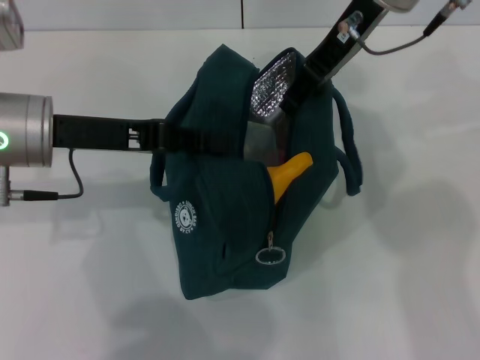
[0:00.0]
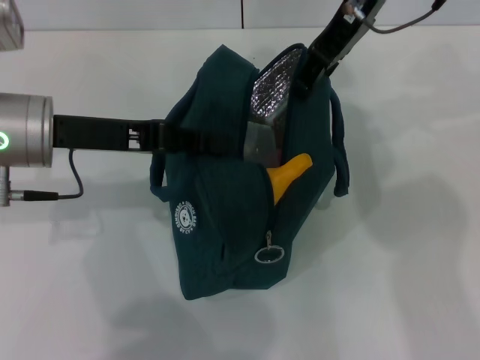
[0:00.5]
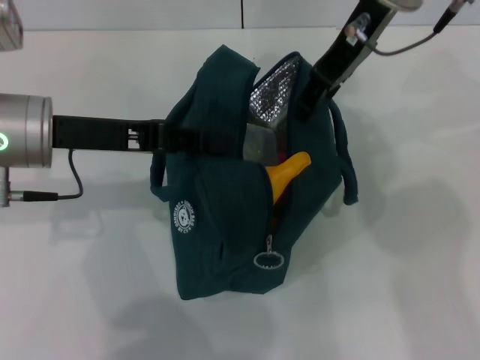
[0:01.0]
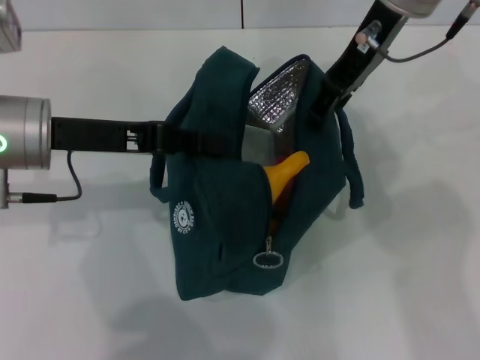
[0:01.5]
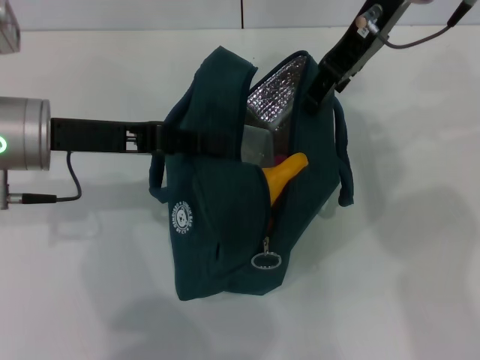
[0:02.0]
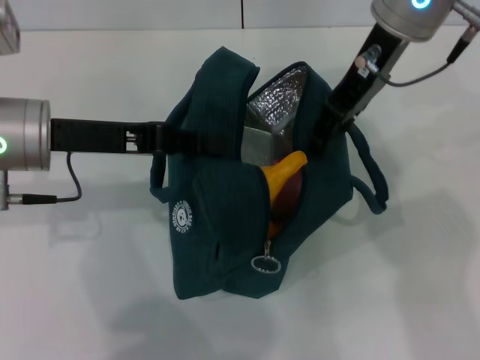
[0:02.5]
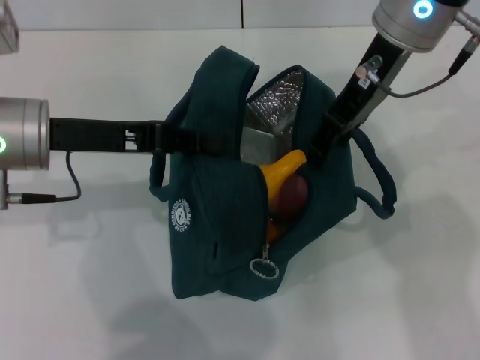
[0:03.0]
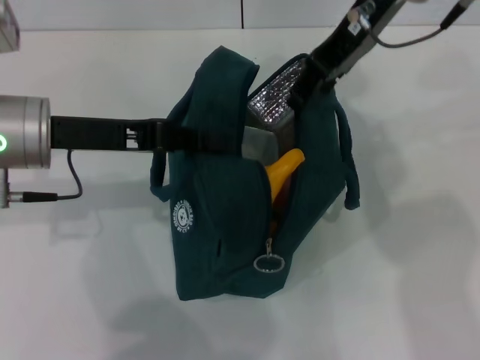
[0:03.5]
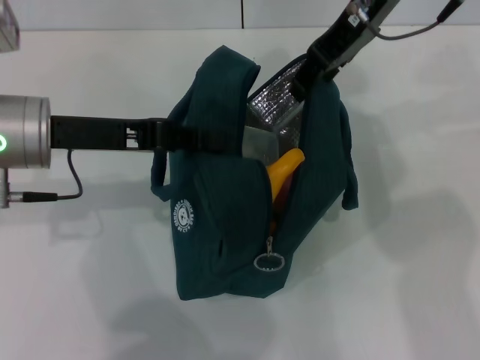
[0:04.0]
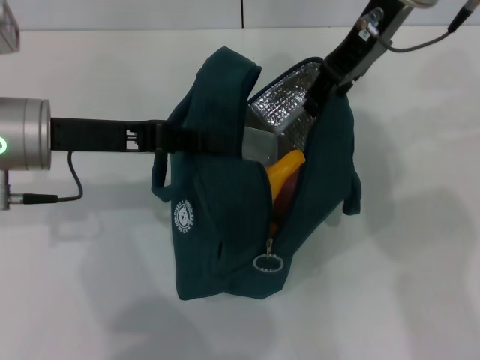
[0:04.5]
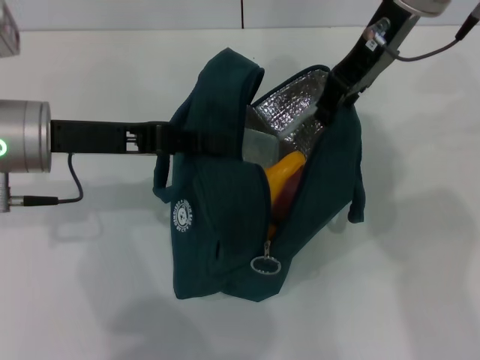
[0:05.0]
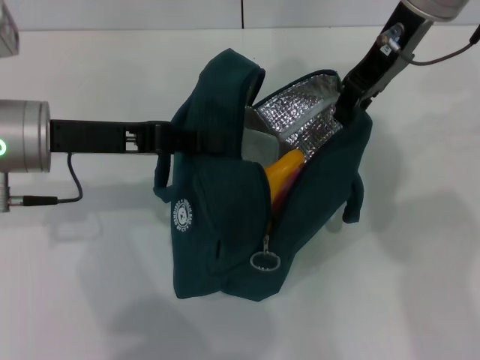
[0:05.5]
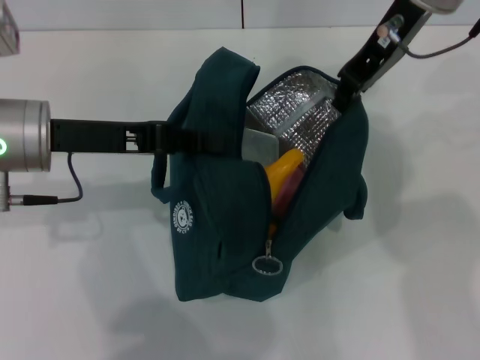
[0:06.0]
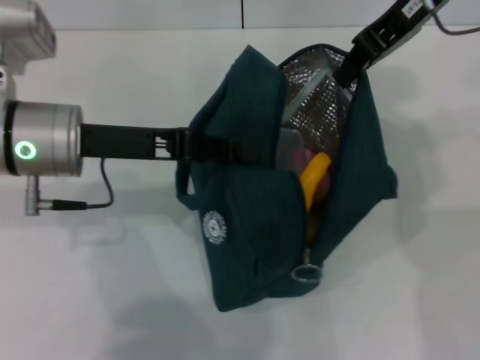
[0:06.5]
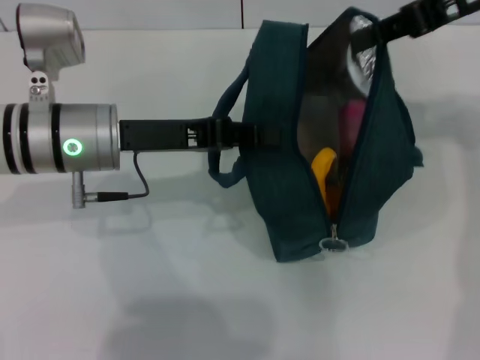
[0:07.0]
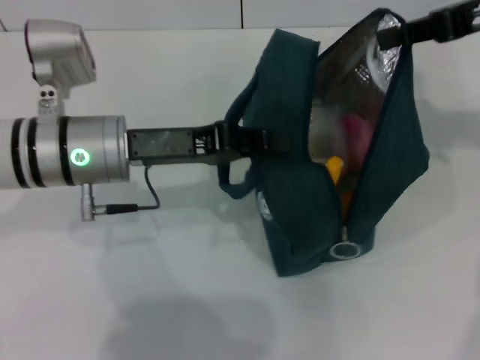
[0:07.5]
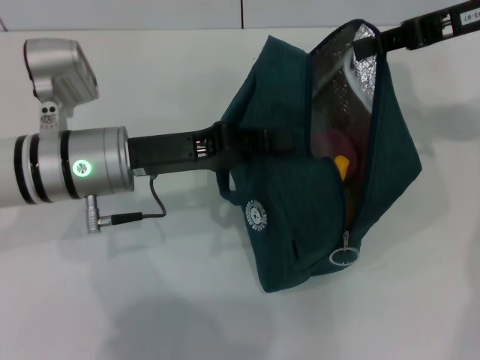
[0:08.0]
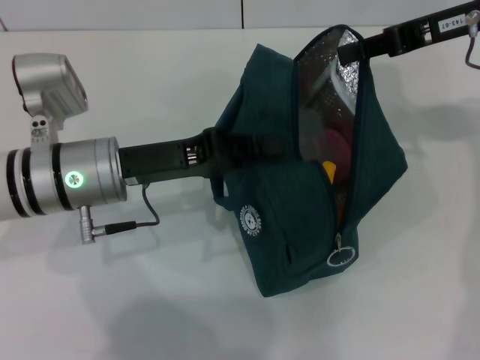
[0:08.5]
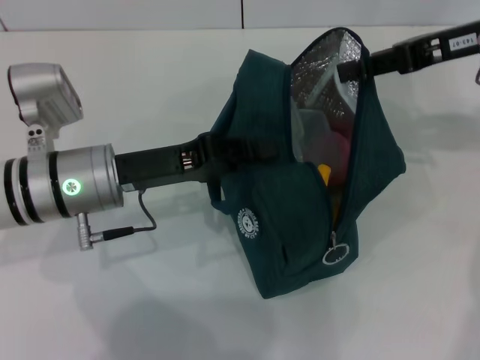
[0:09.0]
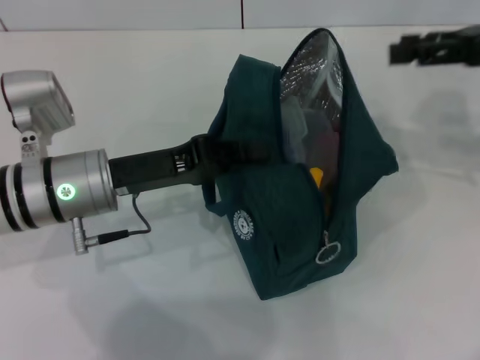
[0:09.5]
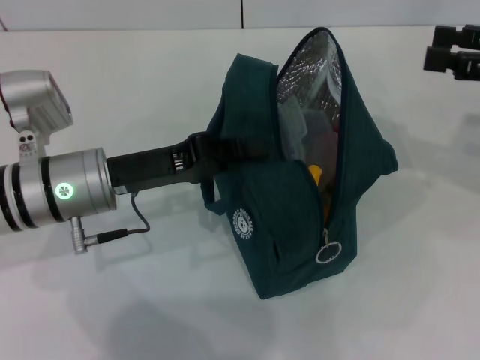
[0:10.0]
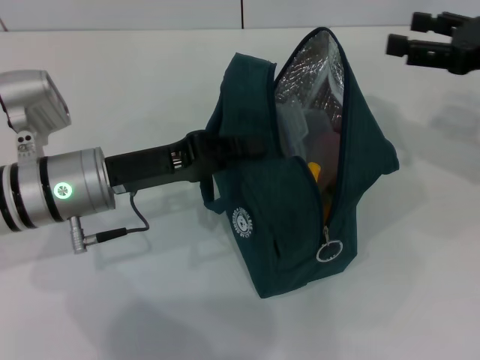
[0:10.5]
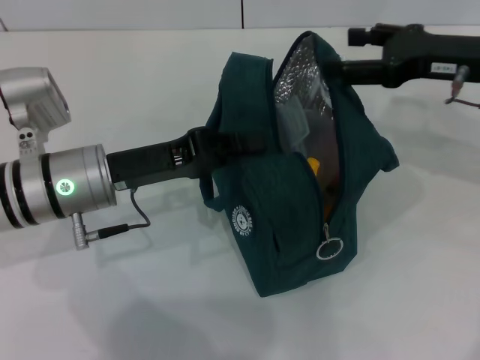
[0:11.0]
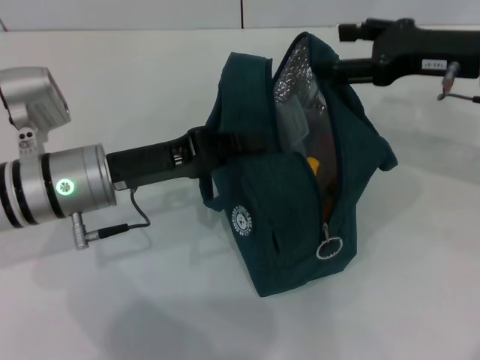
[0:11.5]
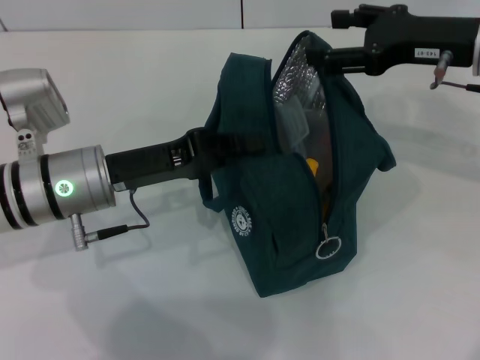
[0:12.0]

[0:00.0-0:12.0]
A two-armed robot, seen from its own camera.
Step, 0:00.0 to 0:09.0: Hold the lunch bag with your right hand.
0:00.0 to 0:04.0: There are only small adjustments of the grippers.
0:04.0 to 0:06.0: The right gripper closes up.
0:06.0 to 0:08.0: The right gripper heads to the right, covering roughly 10 cm; the left gripper moves to the right, about 5 cm.
0:08.0 to 0:10.0: The right gripper heads to the right and backward, covering approximately 10 cm, and opens up.
0:10.0 to 0:12.0: The right gripper heads to the left and forward, covering roughly 10 cm.

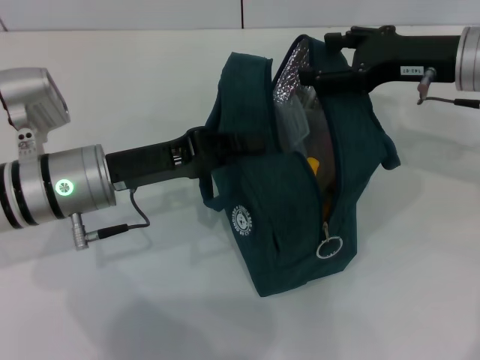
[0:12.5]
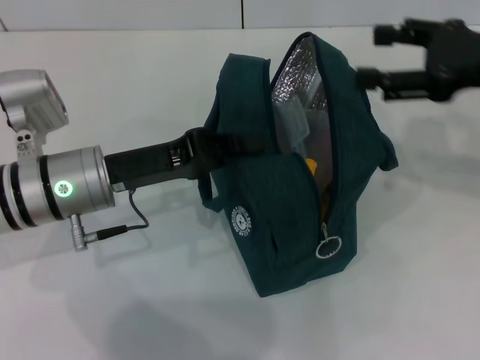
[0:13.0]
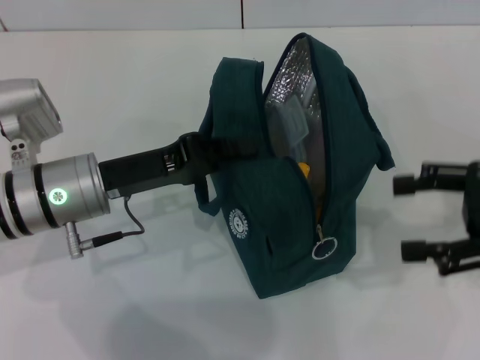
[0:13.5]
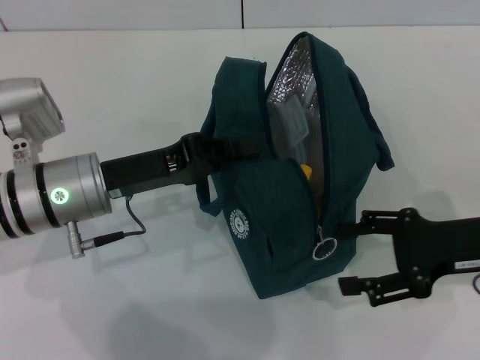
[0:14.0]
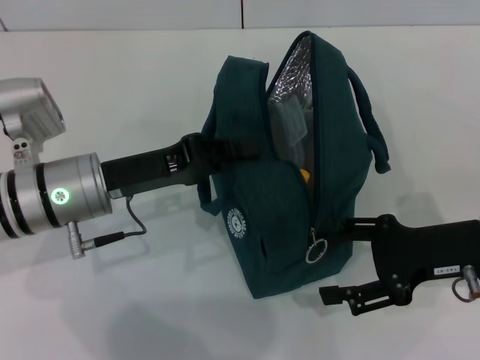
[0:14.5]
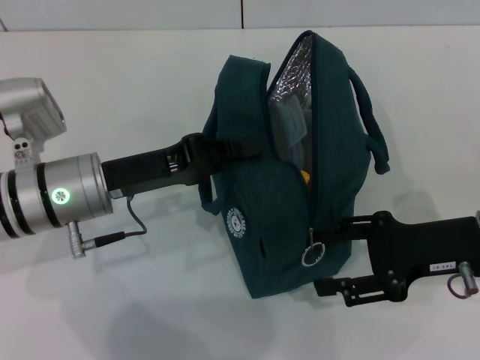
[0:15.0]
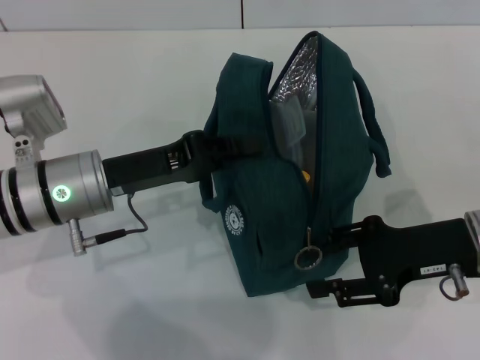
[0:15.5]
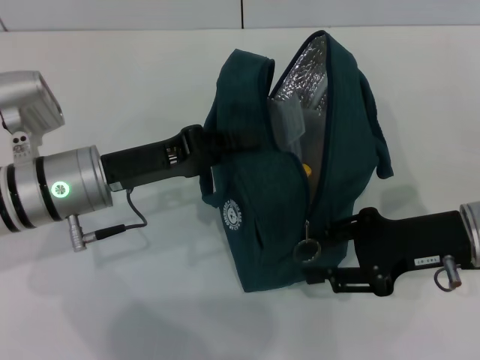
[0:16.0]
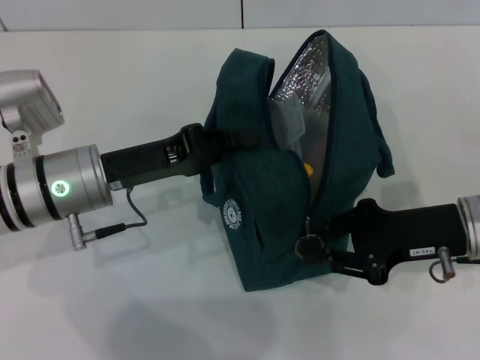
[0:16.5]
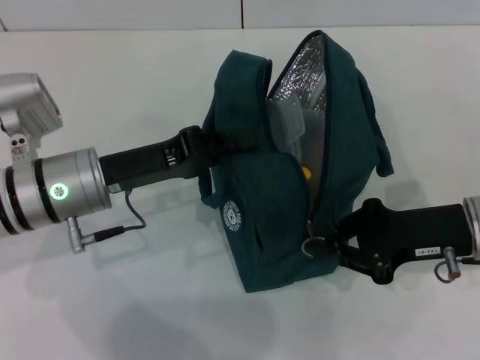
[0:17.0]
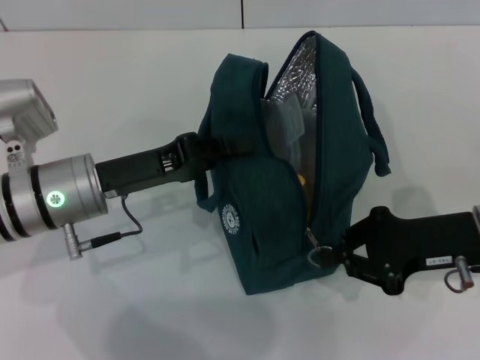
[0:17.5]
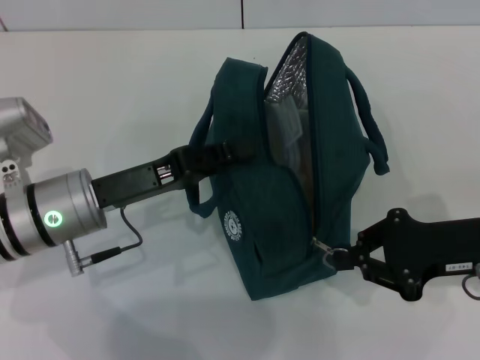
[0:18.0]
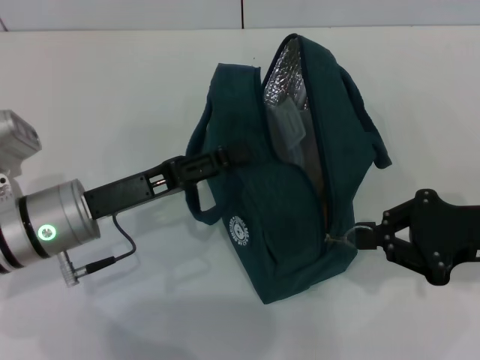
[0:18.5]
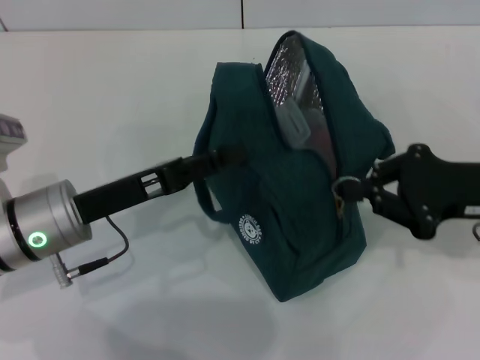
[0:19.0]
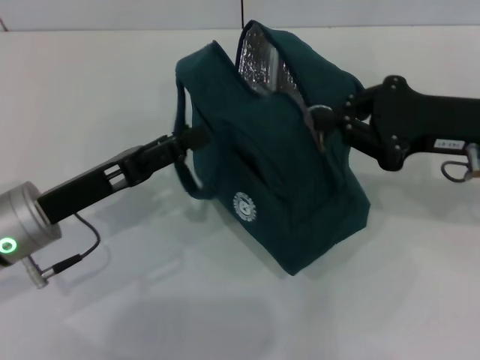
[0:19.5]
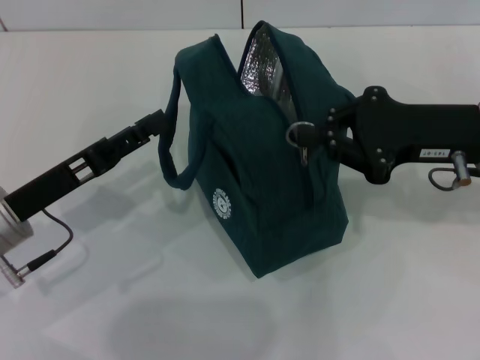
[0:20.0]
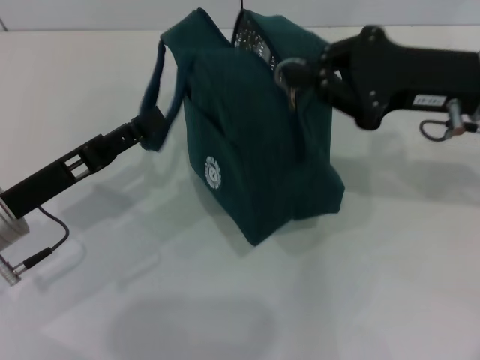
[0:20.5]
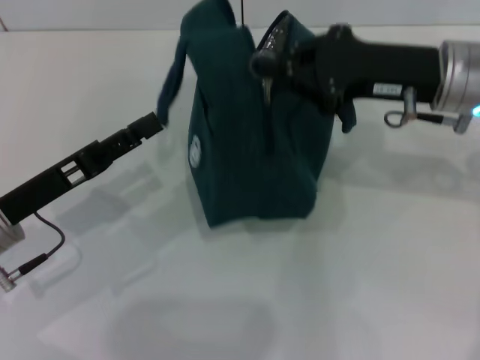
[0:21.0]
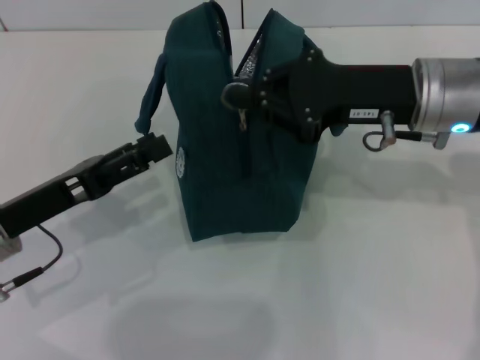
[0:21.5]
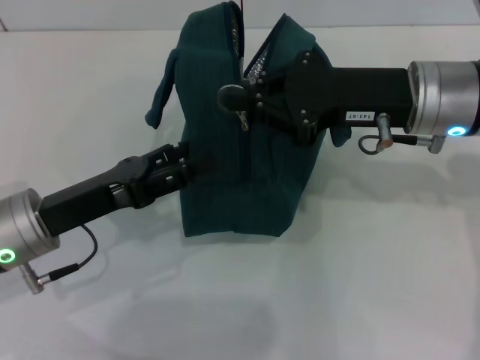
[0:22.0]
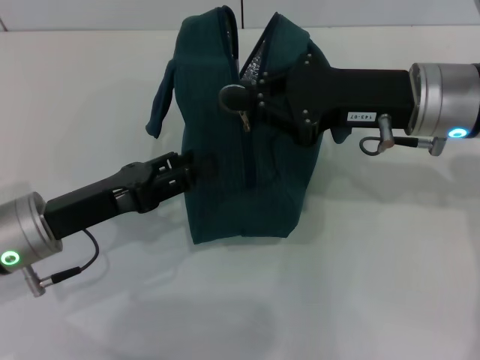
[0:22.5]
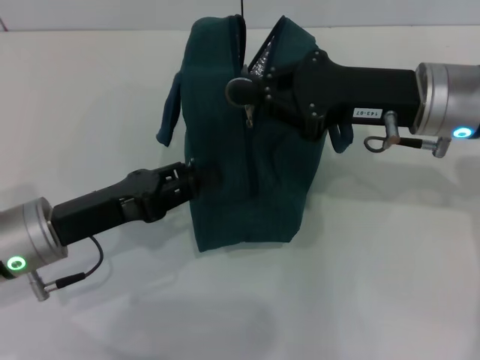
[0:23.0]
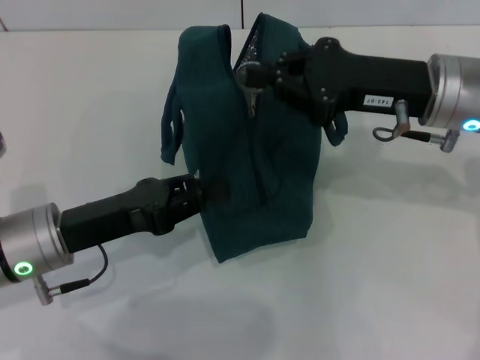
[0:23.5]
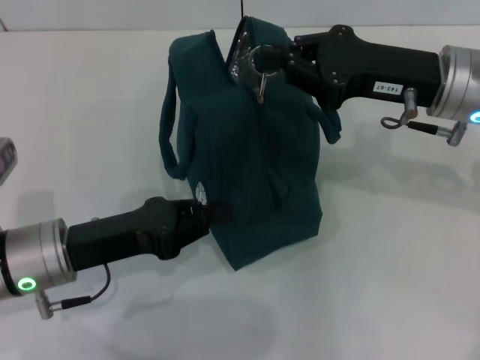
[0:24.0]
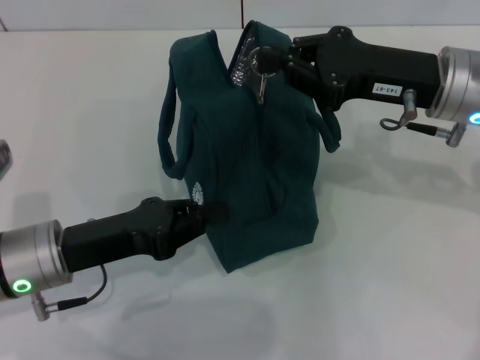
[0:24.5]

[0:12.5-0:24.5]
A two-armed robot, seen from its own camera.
Step, 0:12.5 to 0:19.0: Hold the lunch bag with your left hand.
0:12.5 to 0:14.5: The right gripper shifts some 15 cm backward and downward.
0:14.5 to 0:16.5: The right gripper closes its fingers.
0:16.5 to 0:18.5: The left gripper opens up. The right gripper shifts by some 5 cm.
0:18.5 to 0:20.5: The right gripper goes some 10 cm upward, forward and to the left. The left gripper heads to the left, covering roughly 5 cm.
0:22.5 to 0:24.5: The left gripper closes.

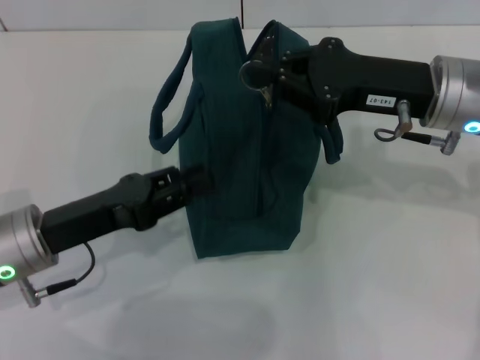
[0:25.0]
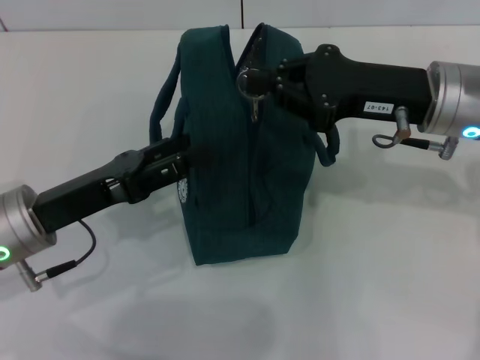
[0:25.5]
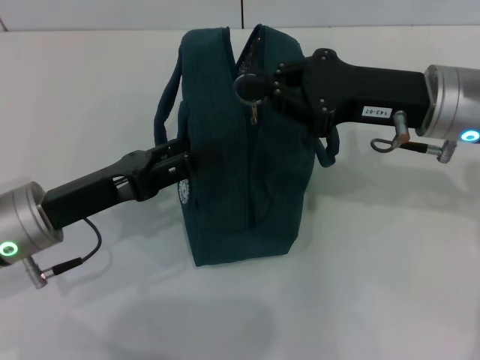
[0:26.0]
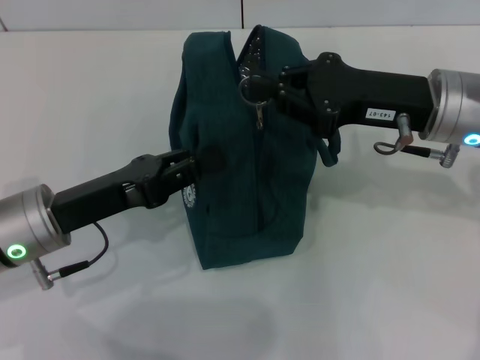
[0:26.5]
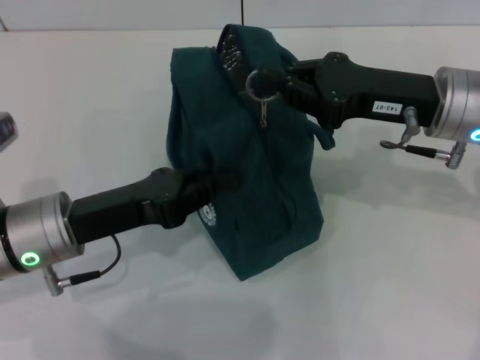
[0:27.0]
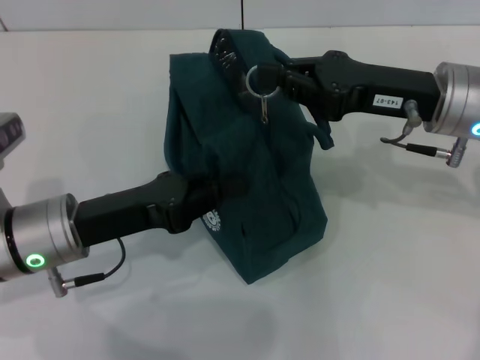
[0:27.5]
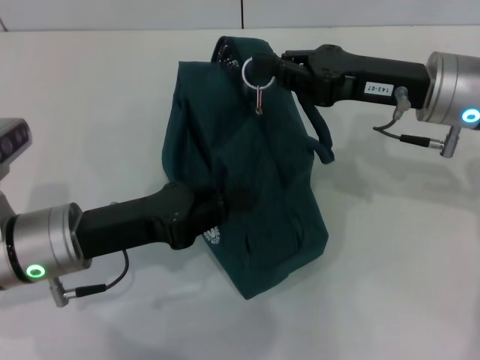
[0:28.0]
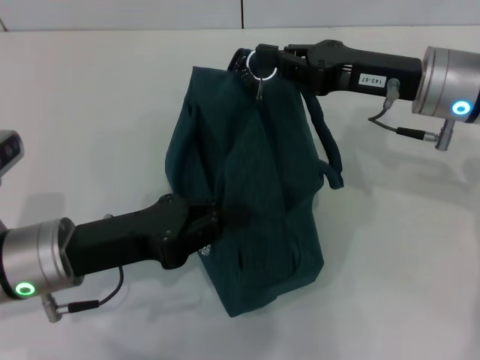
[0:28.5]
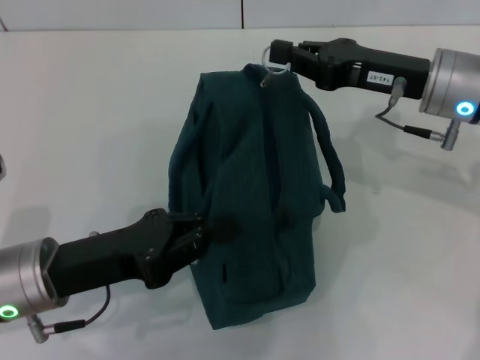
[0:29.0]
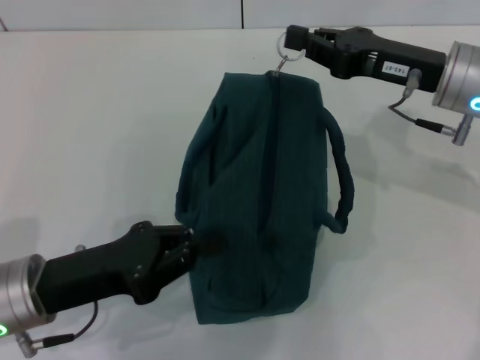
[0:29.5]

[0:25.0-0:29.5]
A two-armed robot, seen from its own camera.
0:25.0 to 0:27.0: The left gripper opens, then closes again.
0:27.0 to 0:29.5: The left gripper shifts by roughly 5 cm.
